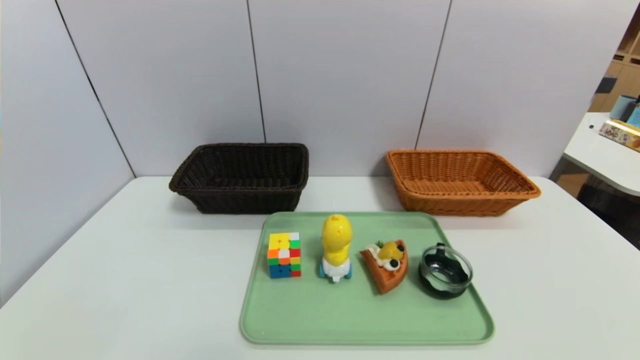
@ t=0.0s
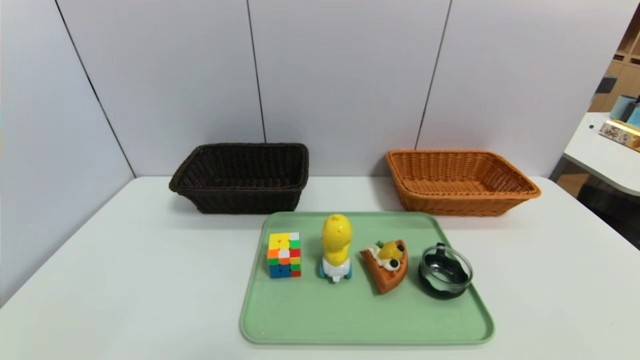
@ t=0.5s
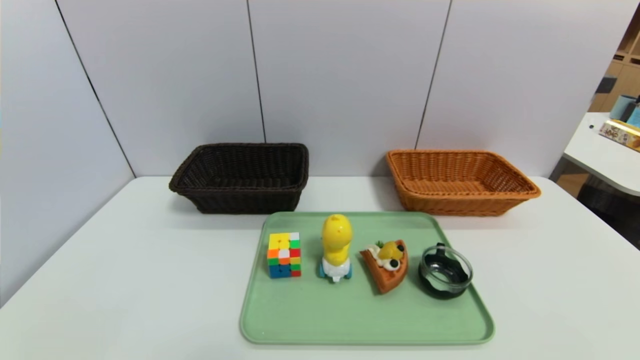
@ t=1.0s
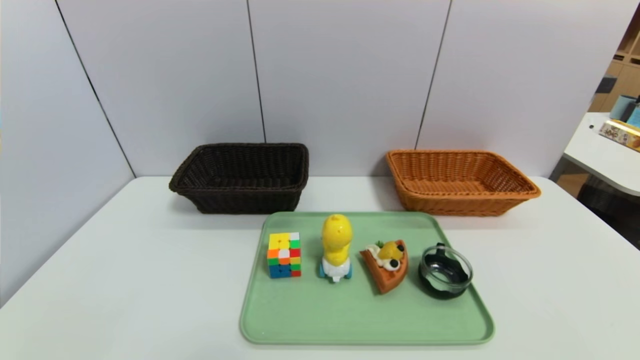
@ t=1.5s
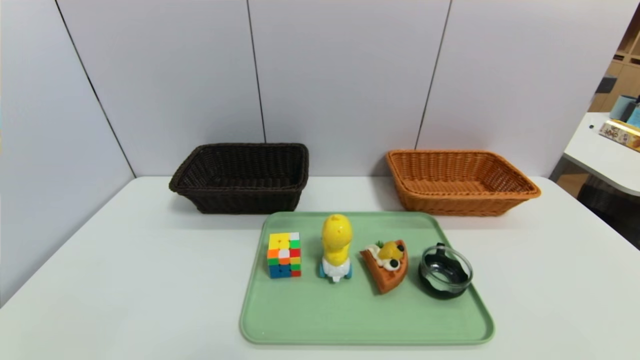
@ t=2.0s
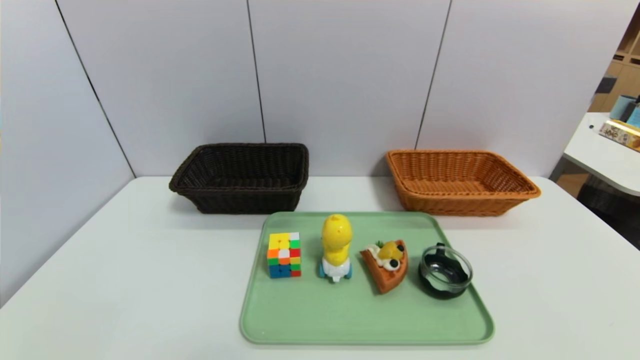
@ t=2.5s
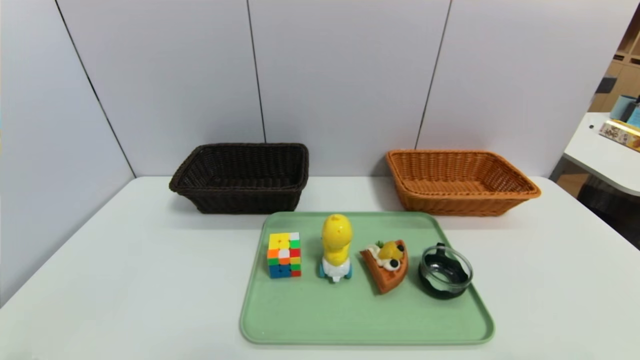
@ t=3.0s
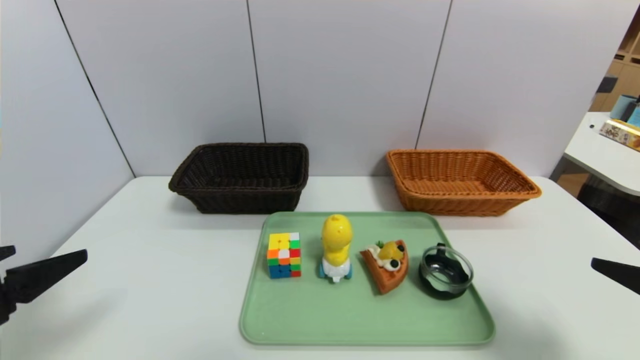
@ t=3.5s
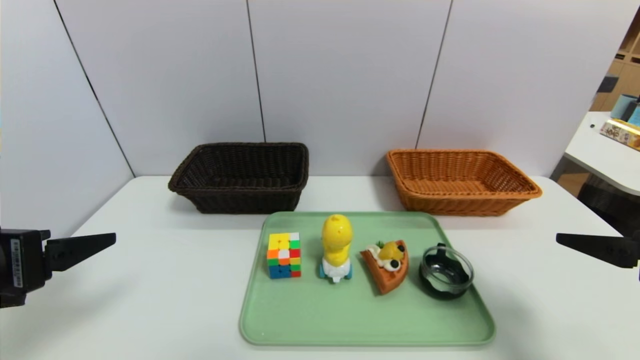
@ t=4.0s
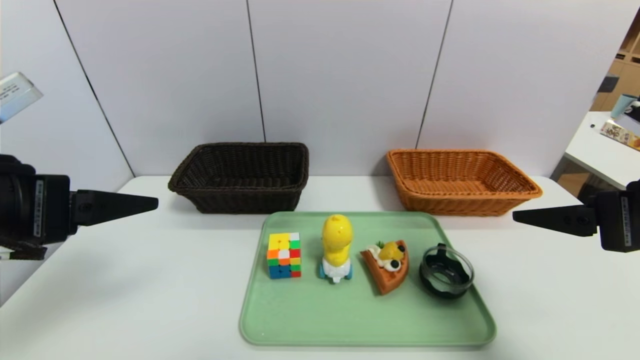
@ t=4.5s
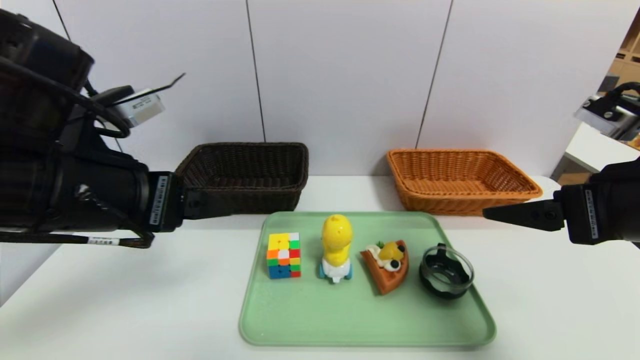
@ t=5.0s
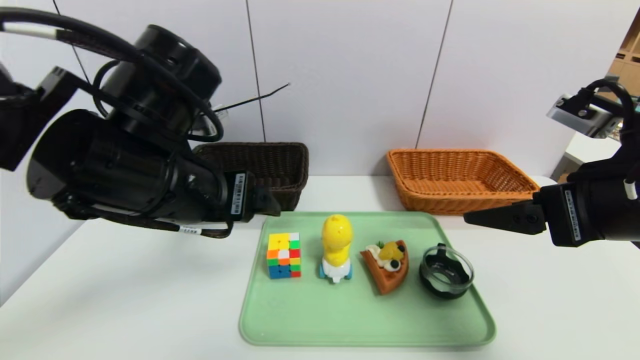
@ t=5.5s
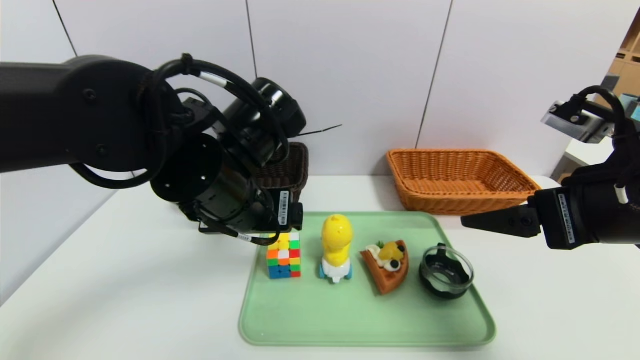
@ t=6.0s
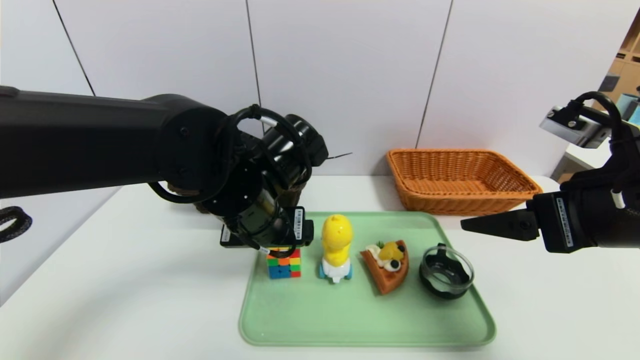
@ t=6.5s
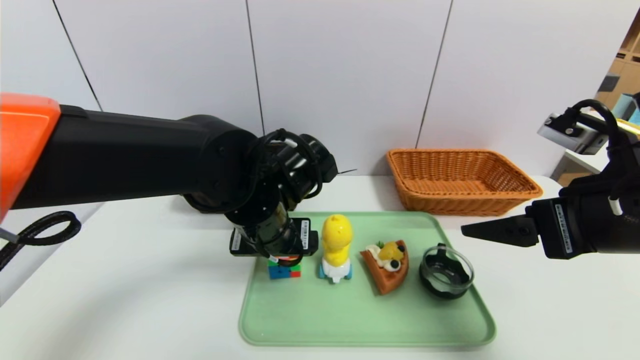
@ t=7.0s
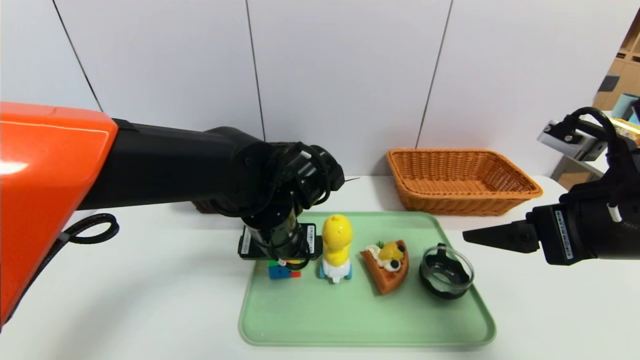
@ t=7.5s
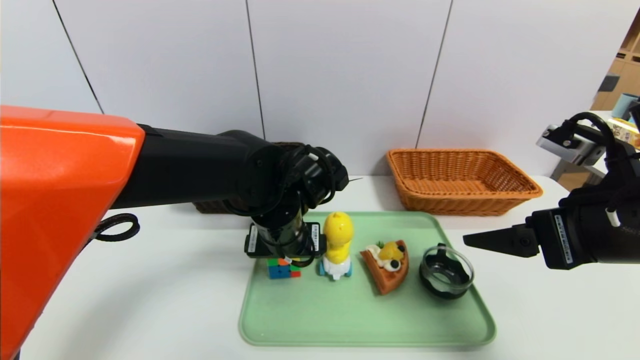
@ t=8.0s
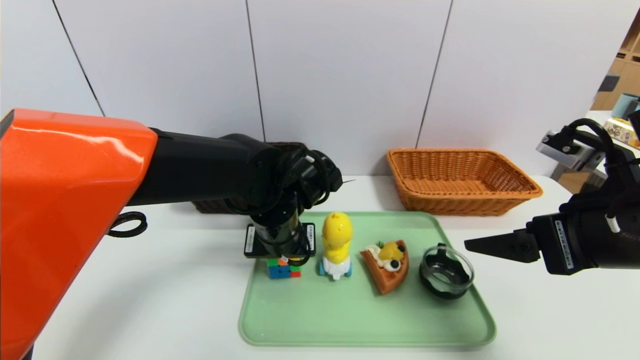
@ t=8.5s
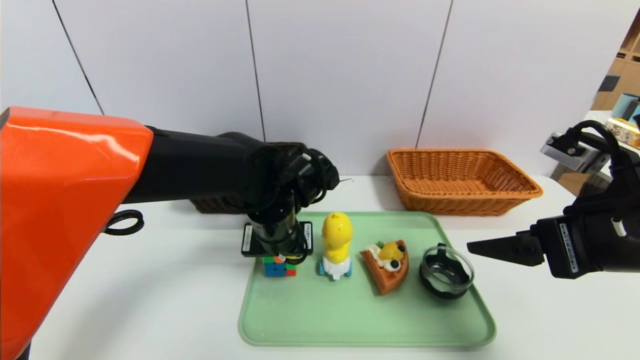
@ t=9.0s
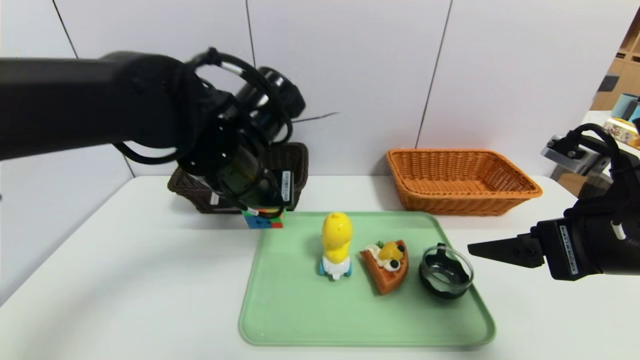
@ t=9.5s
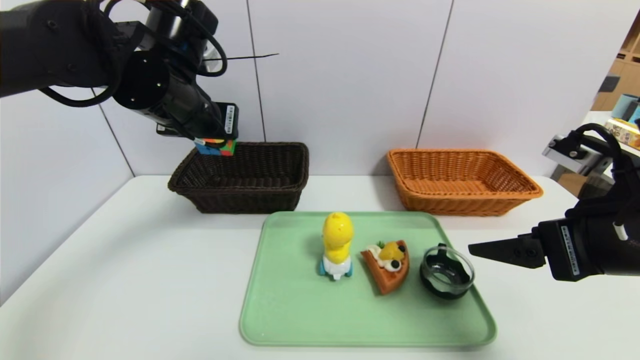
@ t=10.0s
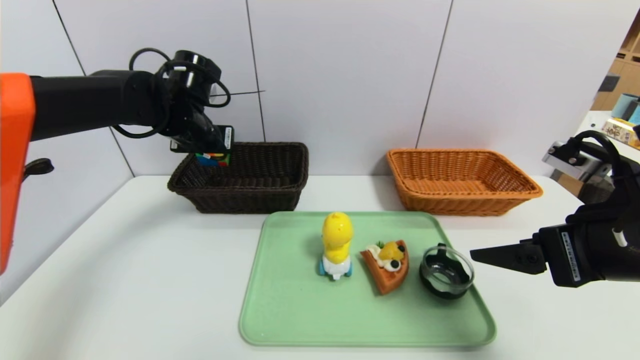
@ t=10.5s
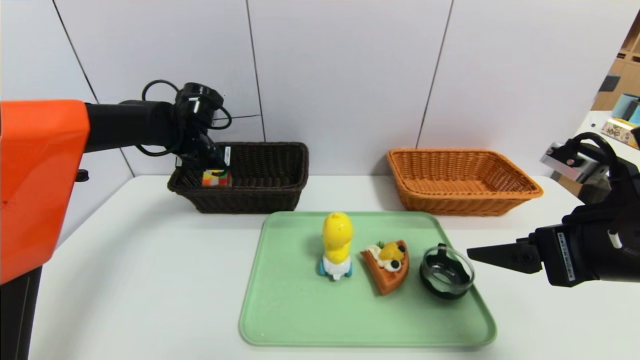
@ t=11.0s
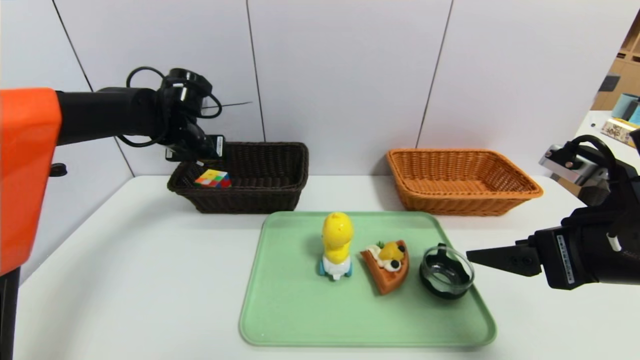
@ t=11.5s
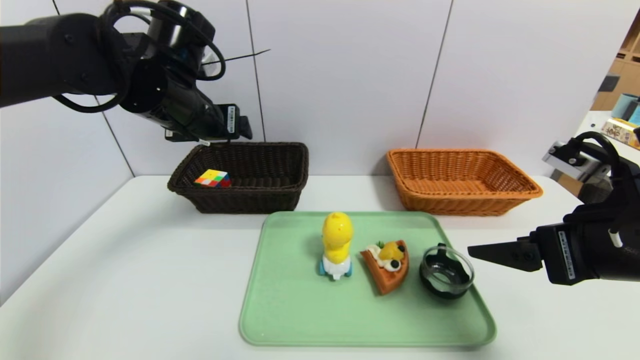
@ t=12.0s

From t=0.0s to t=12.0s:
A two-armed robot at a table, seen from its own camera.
Task of the whole recording: place the food in the right basket with the right gripper, and place the non food items in the left basket with the left gripper.
Step, from t=0.0s to t=11.5s: Grasp the rubiks cube and put it in the left basket.
From t=0.0s to t=2.0s: The two grippers keep their place.
From t=2.0s to t=4.0s: The right gripper travels forward and upward by about 20 cm. Meanwhile the left gripper shifts about 20 cm upward and forward.
From t=4.0s to t=6.0s: The right gripper heads to the left, covering some 5 cm; the left gripper heads to the right and forward, covering some 25 cm.
From t=6.0s to t=8.0s: The left gripper heads downward, covering roughly 10 cm.
From t=8.0s to t=10.0s: The left gripper heads upward and to the left, covering roughly 20 cm, and closes.
From t=10.0s to t=12.0s: The left gripper moves about 10 cm forward and comes back, and opens.

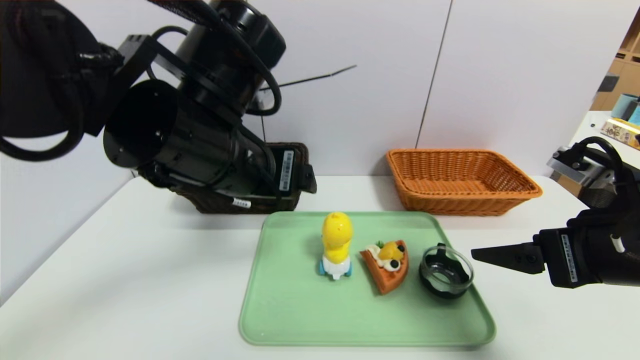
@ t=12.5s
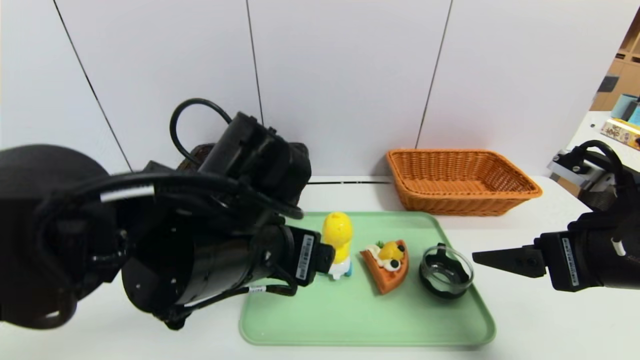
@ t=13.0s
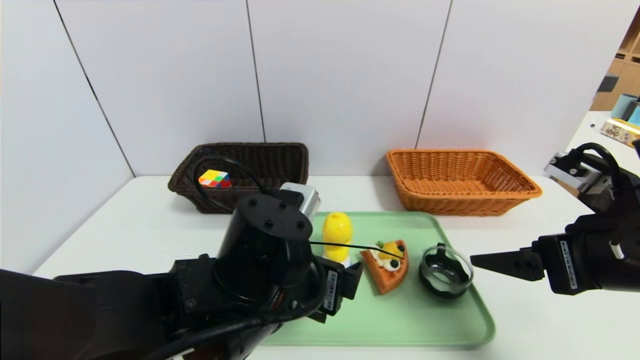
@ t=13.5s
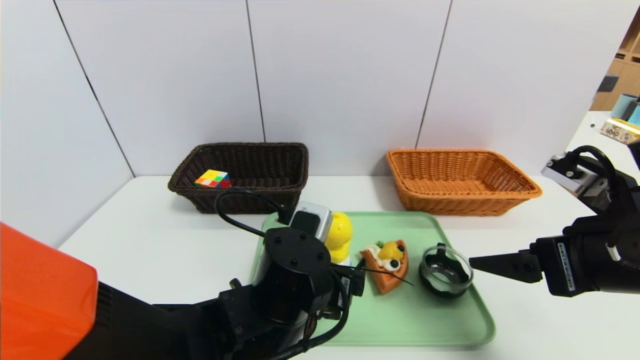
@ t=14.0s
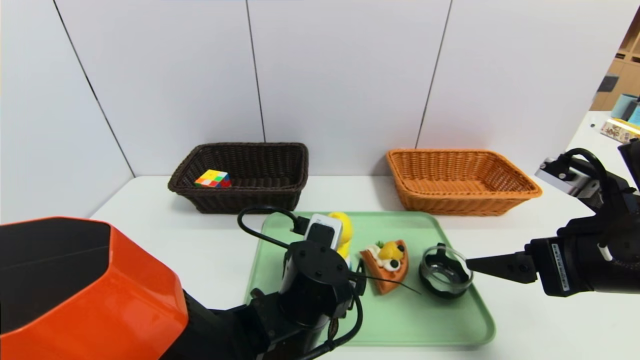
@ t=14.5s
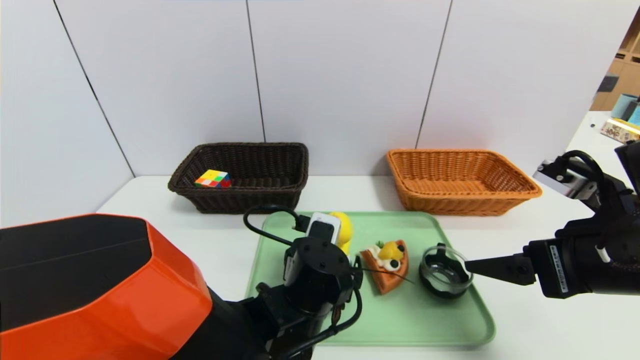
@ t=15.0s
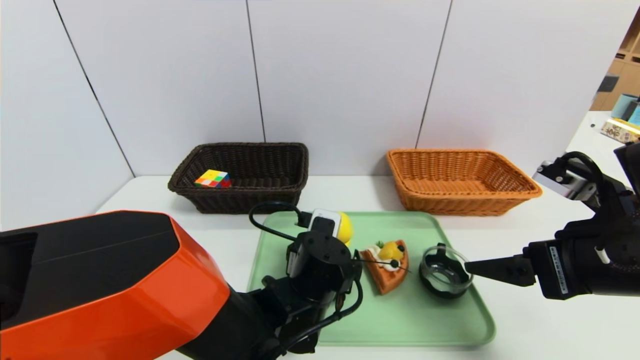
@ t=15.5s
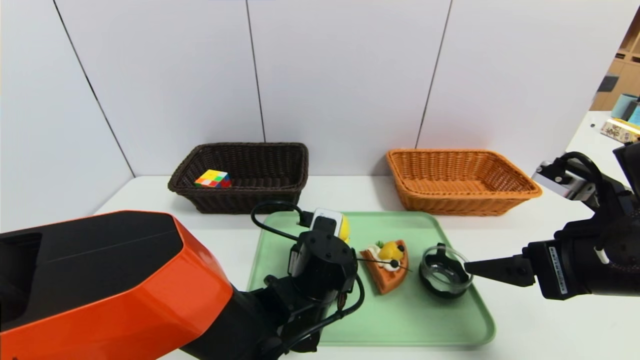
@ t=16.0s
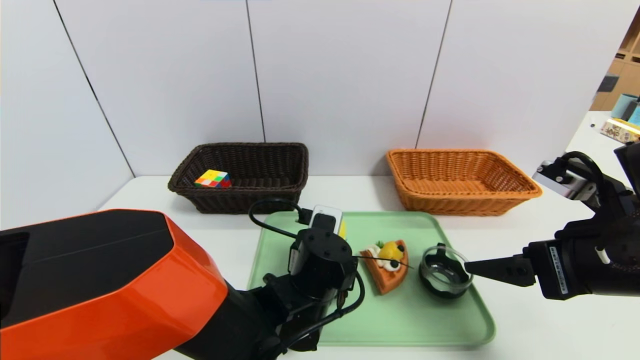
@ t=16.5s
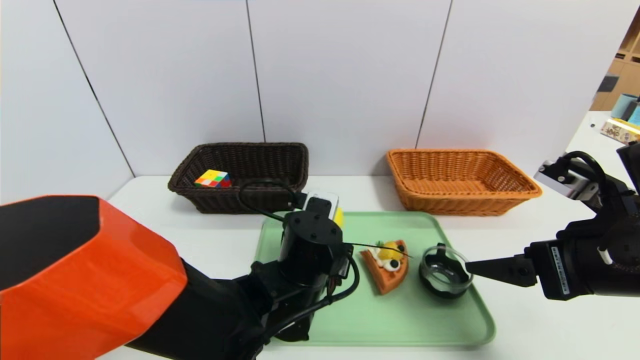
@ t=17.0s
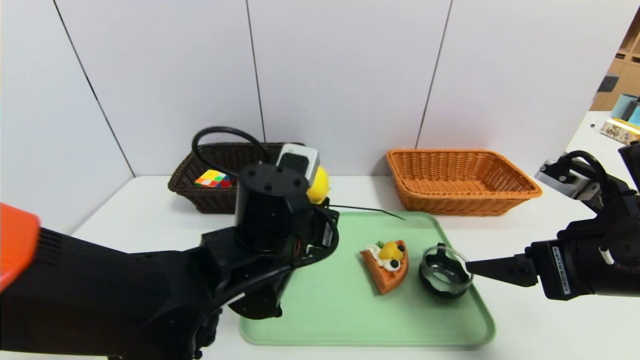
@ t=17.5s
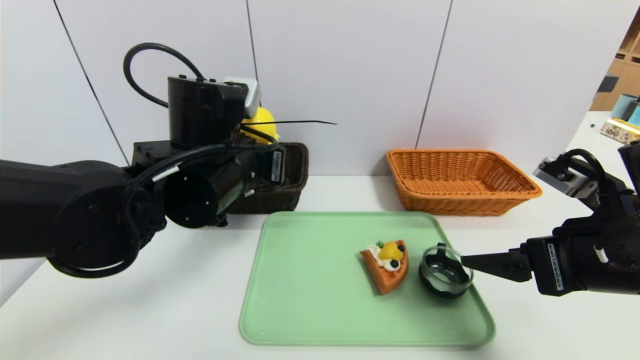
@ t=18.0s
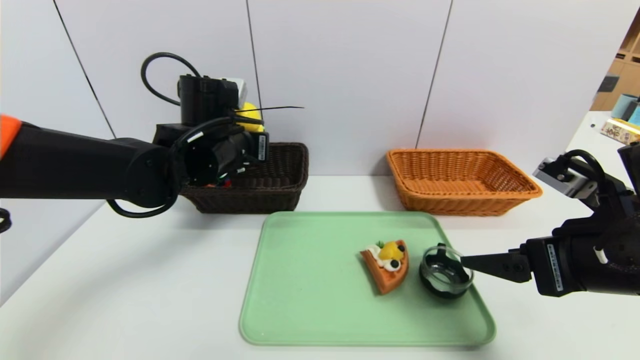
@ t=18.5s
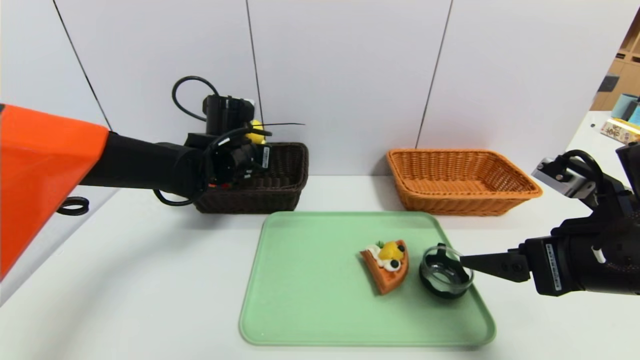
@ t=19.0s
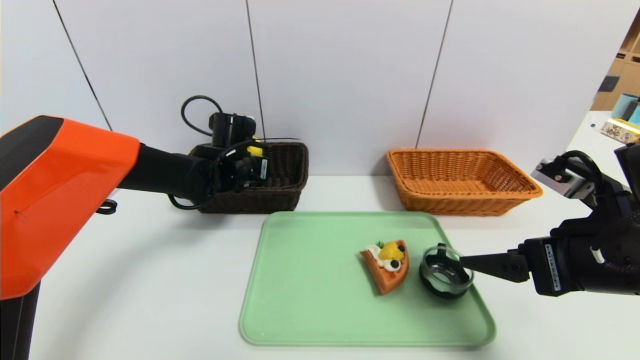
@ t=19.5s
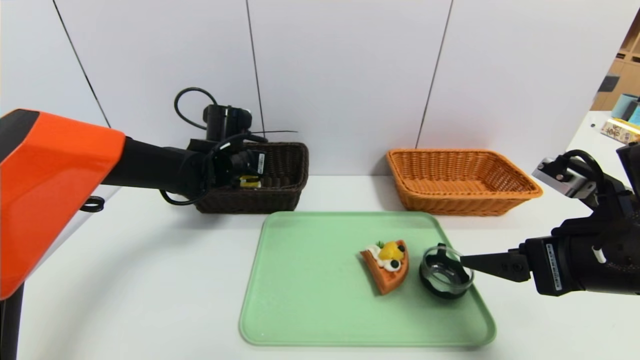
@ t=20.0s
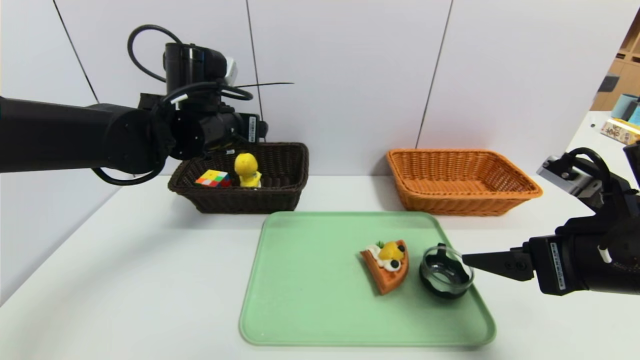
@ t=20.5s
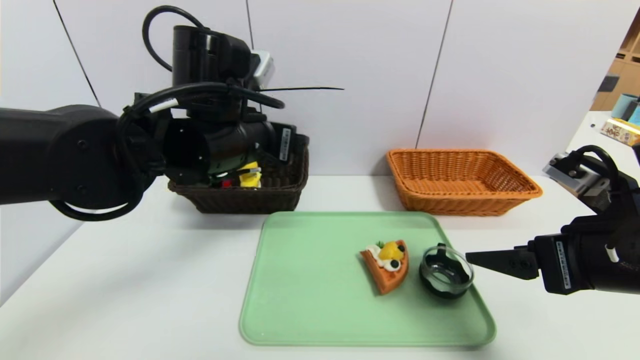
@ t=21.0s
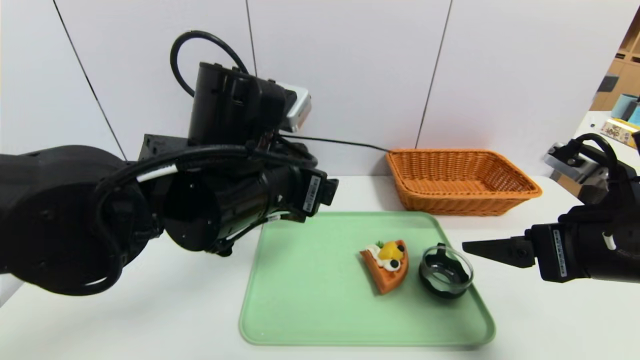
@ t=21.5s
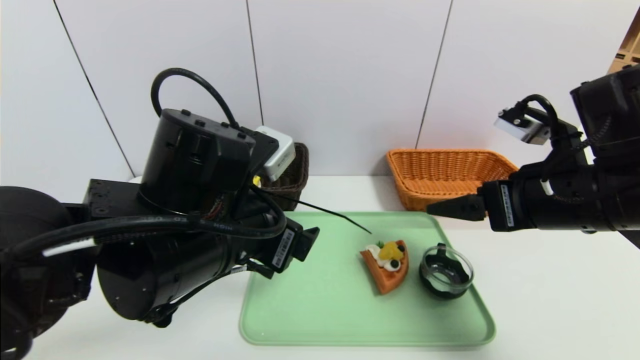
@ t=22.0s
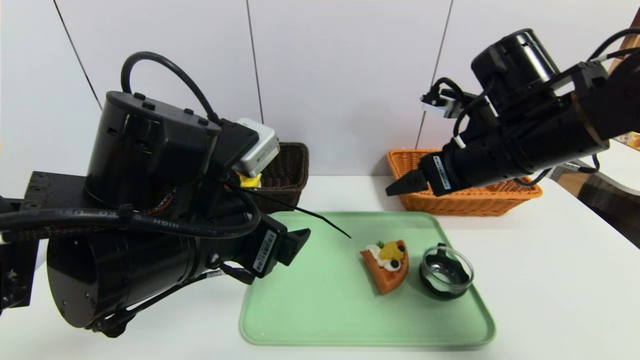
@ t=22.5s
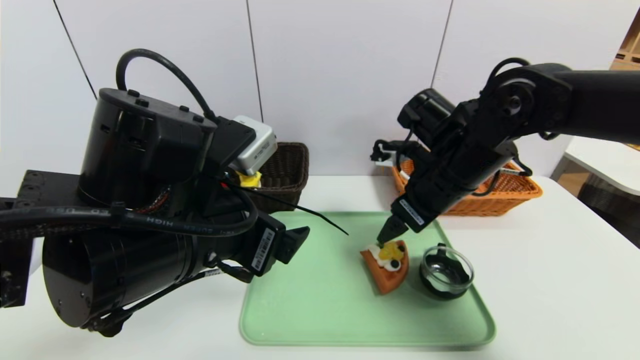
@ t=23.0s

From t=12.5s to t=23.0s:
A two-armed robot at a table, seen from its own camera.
Task of the whole recording: place the food in the right basket with the right gripper, and place the non food items in the left basket with the left gripper.
Step, from t=12.5s to t=20.0s: Grasp the duck toys and put it in the left basket.
From t=12.5s to t=14.5s: The left gripper shifts approximately 20 cm downward.
From t=14.5s to t=16.5s: The left gripper closes its fingers.
From t=16.5s to t=19.0s: The left gripper is displaced forward, to the left and upward by about 25 cm.
From t=19.0s to t=21.0s: The left gripper moves backward and upward, some 15 cm, and opens.
From t=21.0s to t=23.0s: The left gripper travels backward by roughly 10 cm. The right gripper is displaced forward and to the left by roughly 20 cm.
